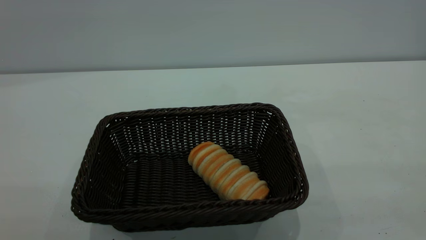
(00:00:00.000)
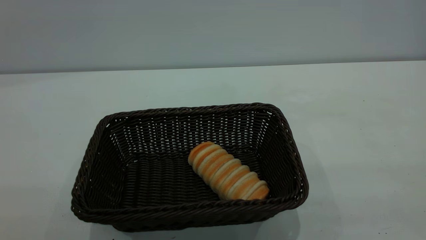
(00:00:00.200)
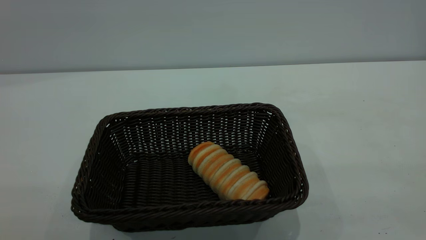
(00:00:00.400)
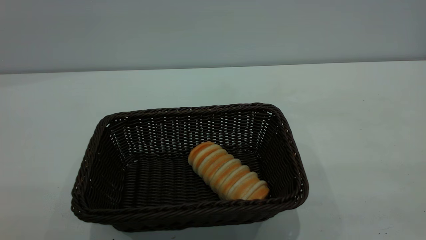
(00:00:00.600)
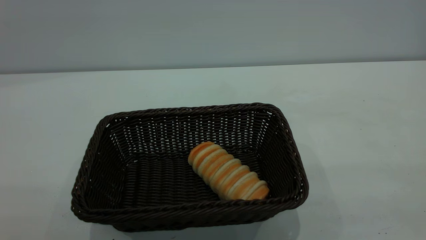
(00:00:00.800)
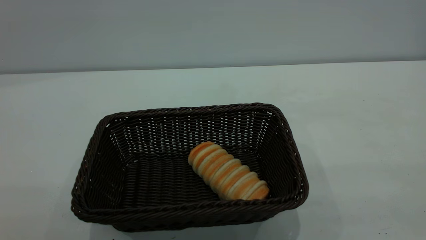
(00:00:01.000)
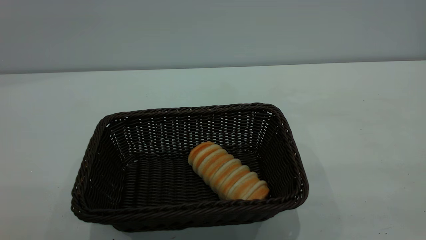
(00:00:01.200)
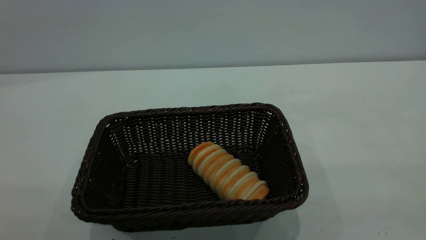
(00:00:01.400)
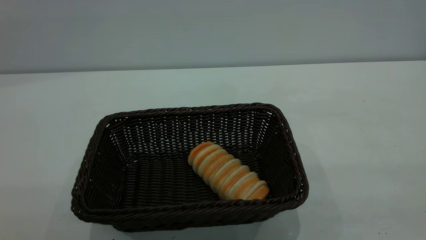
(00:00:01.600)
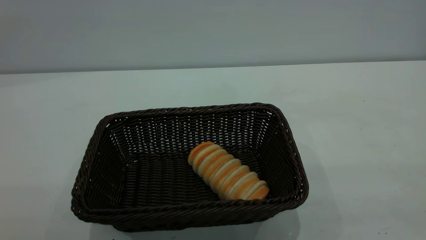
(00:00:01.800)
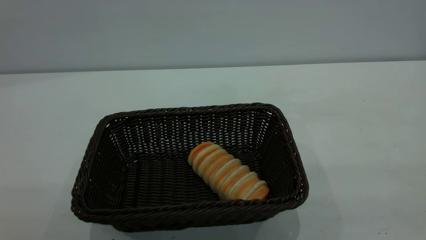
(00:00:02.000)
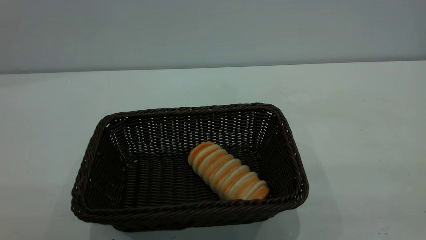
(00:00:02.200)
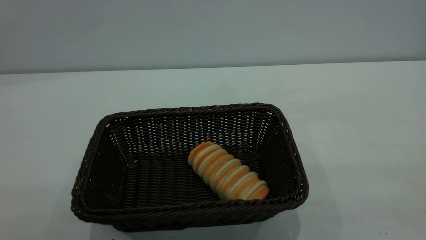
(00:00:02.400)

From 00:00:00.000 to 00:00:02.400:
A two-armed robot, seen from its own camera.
Task of the whole recording: One hand grasps the black basket and places it in the middle of the table, while the other hand picks up the long bread and puts it into the black basket.
From 00:00:00.000 to 00:00:02.400: Both grippers stay put.
